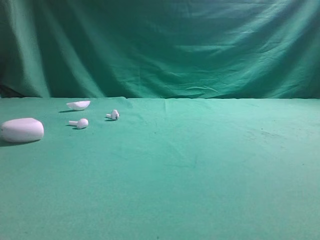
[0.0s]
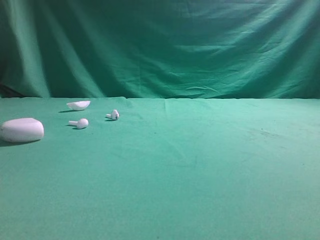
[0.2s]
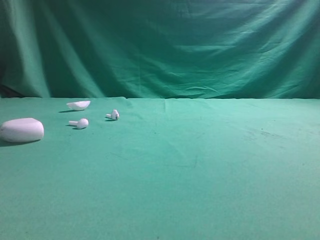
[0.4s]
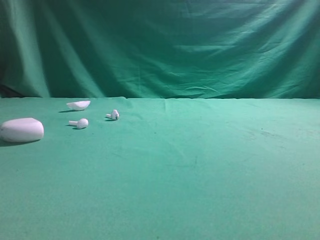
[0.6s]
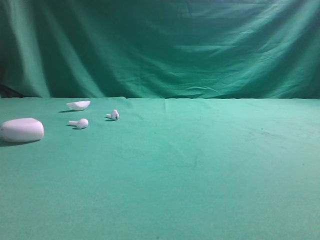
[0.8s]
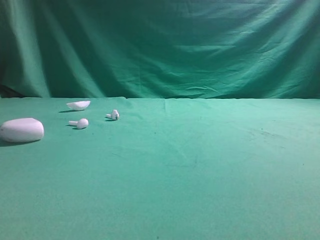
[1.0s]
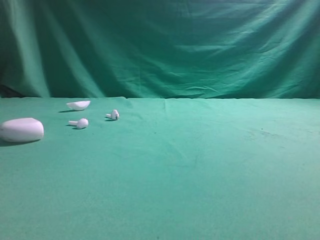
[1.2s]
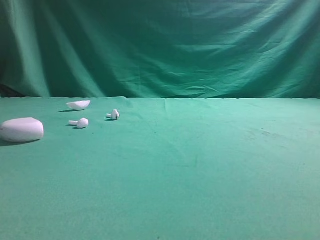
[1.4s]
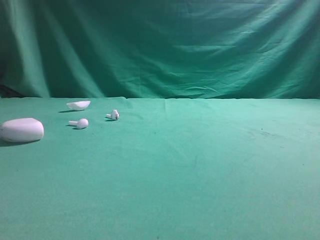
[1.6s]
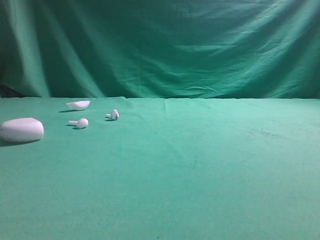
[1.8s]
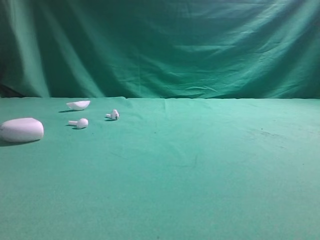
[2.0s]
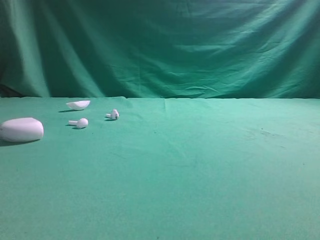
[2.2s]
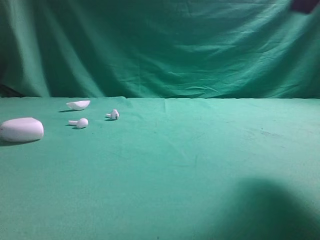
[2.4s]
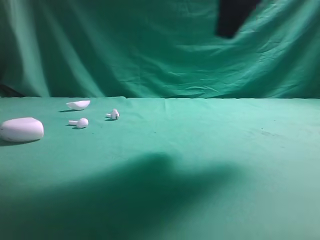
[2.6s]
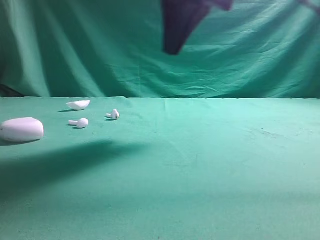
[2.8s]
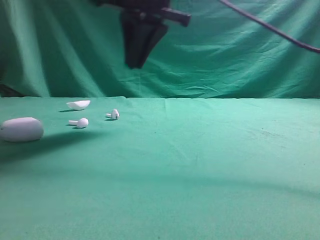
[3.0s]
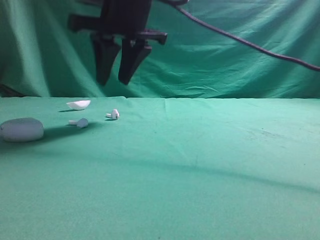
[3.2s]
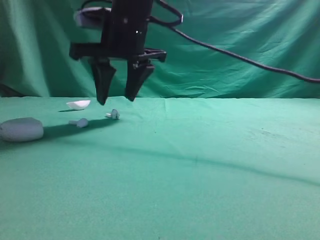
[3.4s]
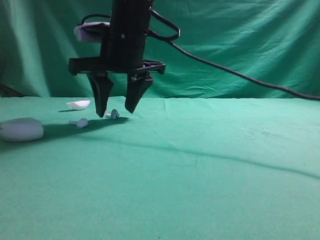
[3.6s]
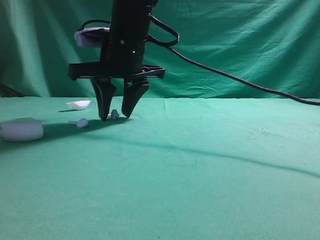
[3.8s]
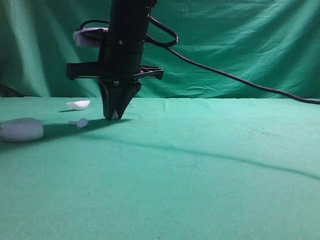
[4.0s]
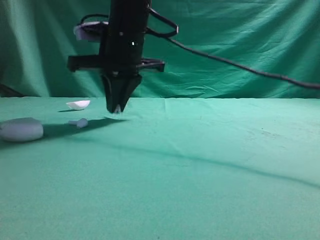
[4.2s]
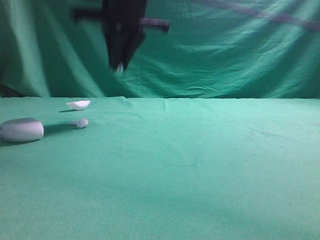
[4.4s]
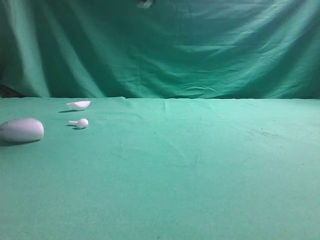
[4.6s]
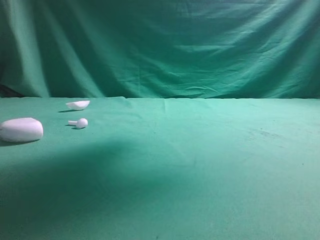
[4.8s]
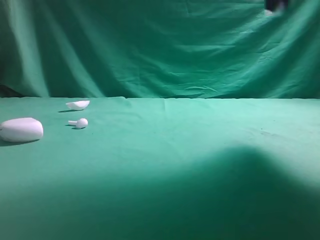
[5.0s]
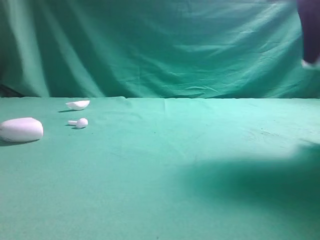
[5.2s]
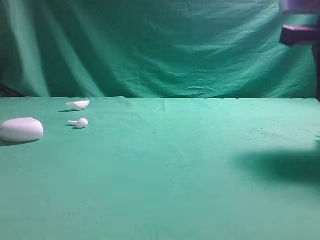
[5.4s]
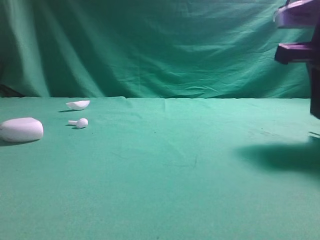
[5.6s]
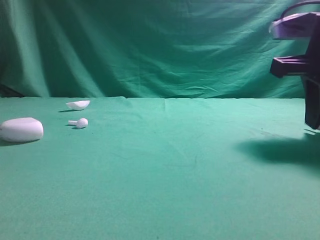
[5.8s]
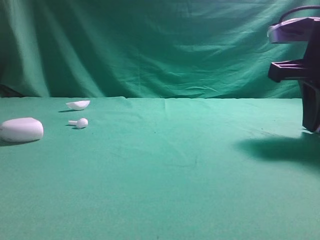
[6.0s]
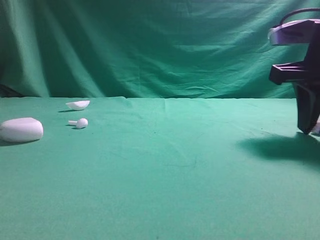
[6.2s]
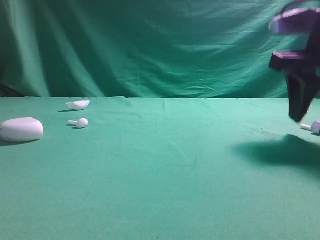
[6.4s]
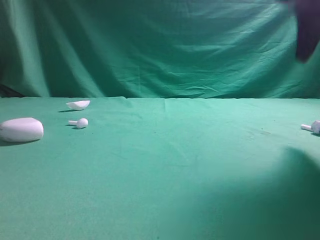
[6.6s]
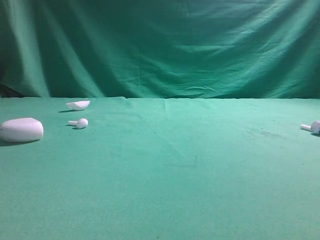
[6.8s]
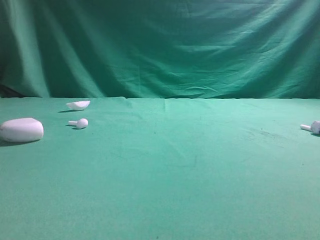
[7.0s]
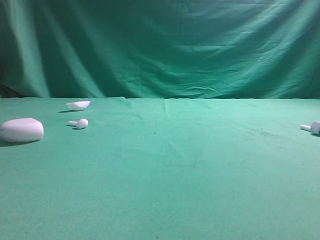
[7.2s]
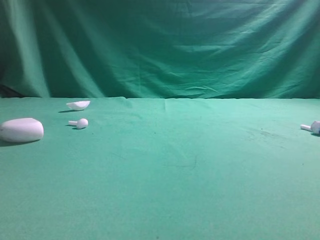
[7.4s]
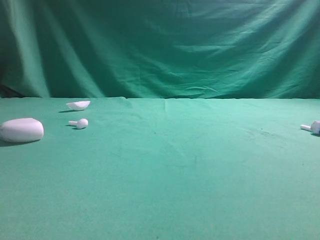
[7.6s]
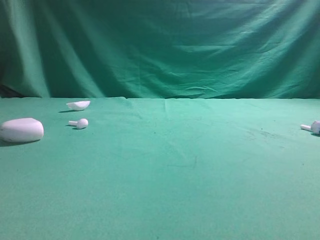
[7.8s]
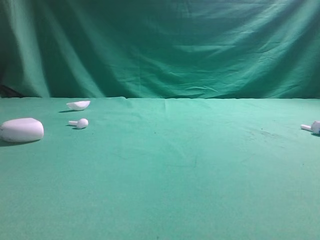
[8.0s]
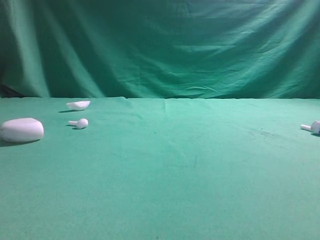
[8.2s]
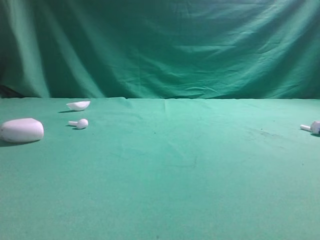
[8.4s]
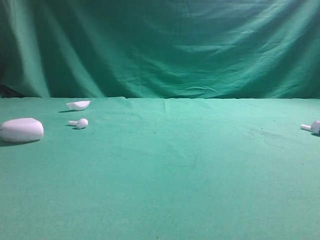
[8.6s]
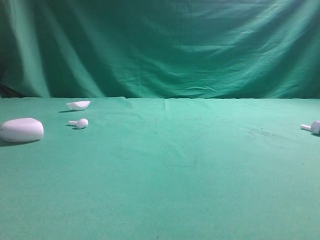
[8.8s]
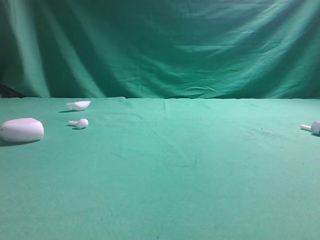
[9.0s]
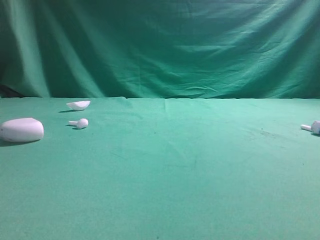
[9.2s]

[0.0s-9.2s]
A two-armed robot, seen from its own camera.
Step, 0.0s to 4.4s: Grasp the Bluetooth earbud.
Step, 4.6s to 6.4s: Place bluetooth earbud on the right side of the table.

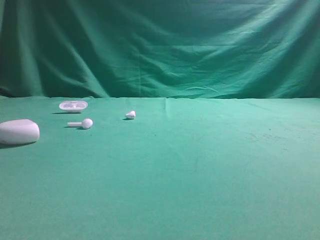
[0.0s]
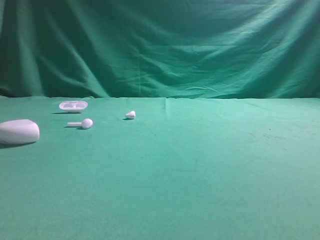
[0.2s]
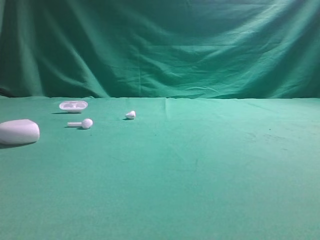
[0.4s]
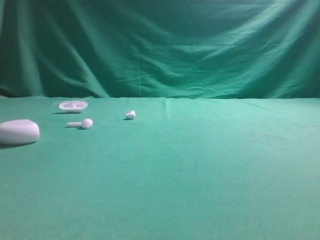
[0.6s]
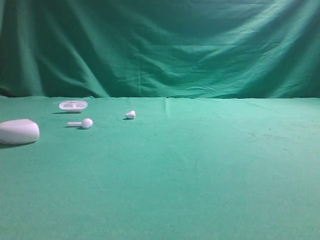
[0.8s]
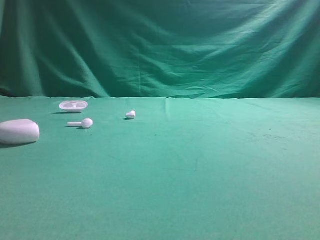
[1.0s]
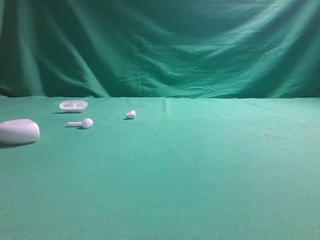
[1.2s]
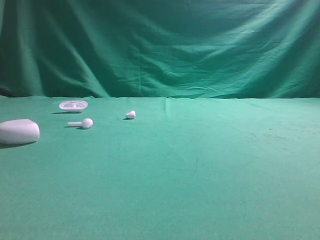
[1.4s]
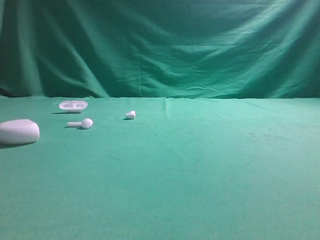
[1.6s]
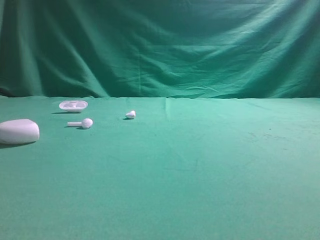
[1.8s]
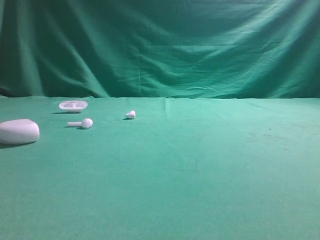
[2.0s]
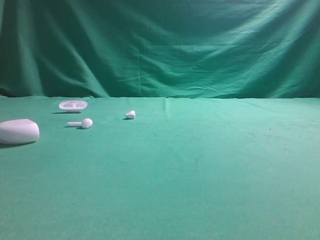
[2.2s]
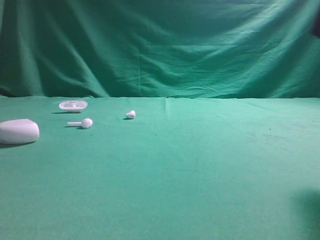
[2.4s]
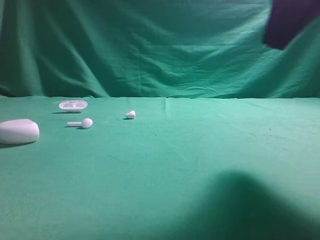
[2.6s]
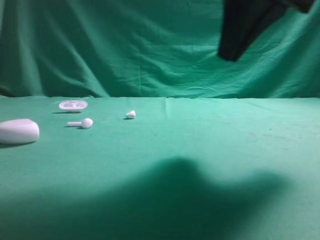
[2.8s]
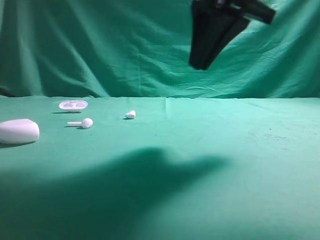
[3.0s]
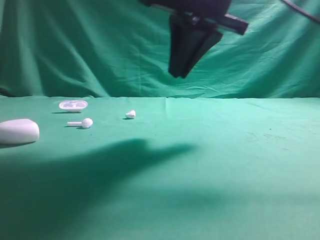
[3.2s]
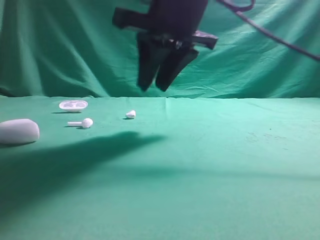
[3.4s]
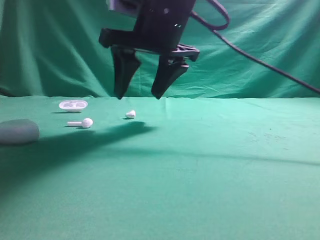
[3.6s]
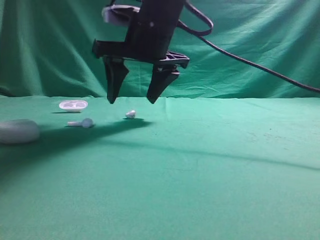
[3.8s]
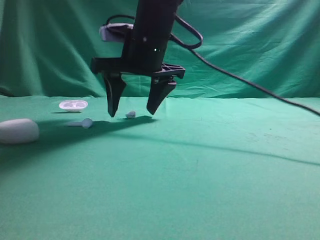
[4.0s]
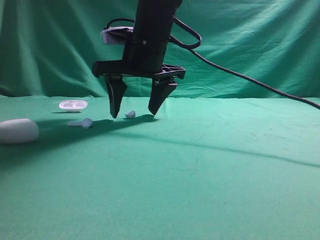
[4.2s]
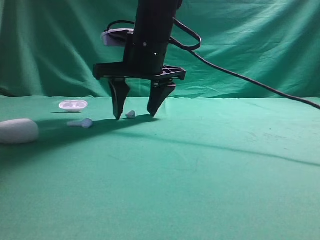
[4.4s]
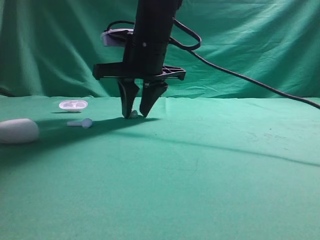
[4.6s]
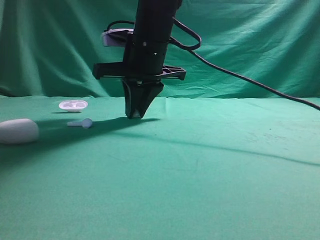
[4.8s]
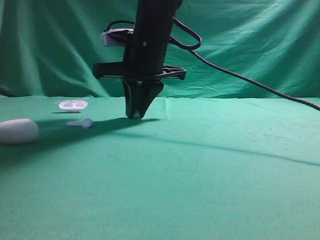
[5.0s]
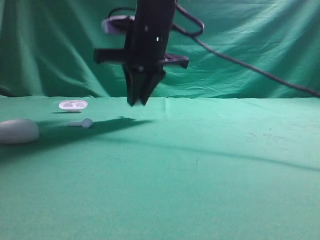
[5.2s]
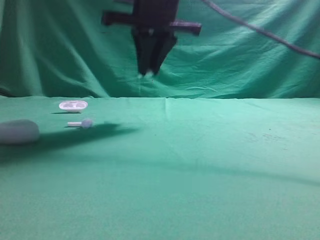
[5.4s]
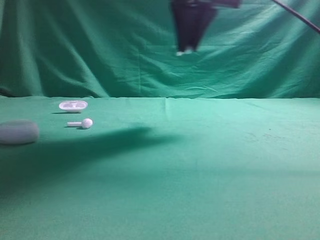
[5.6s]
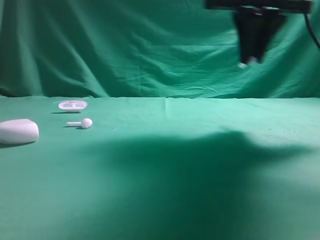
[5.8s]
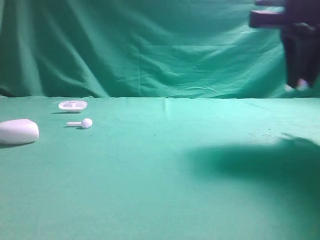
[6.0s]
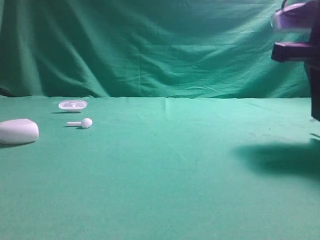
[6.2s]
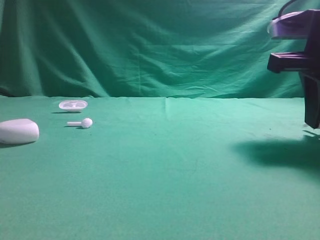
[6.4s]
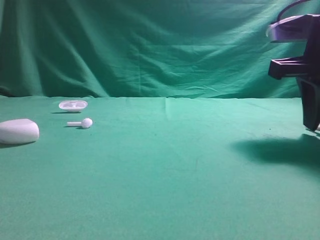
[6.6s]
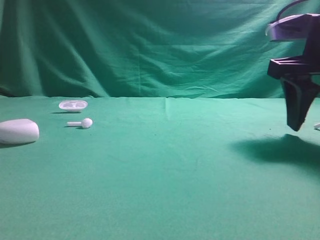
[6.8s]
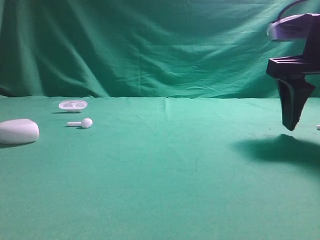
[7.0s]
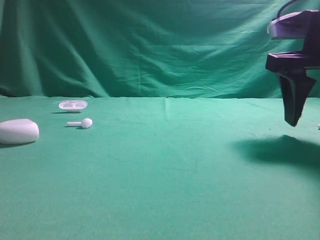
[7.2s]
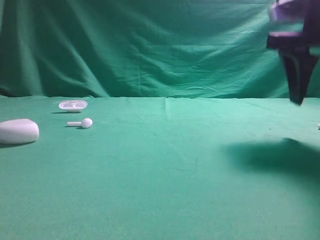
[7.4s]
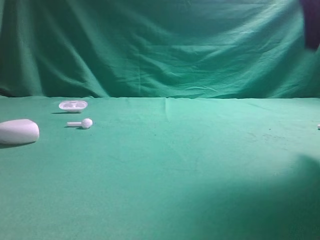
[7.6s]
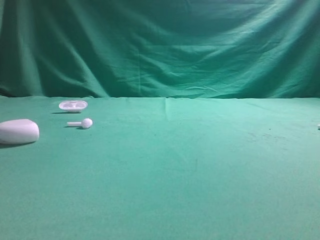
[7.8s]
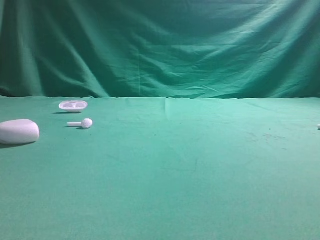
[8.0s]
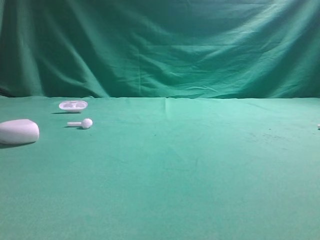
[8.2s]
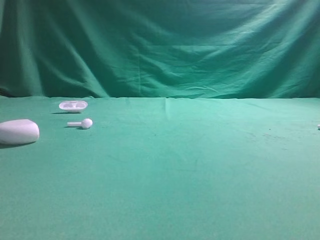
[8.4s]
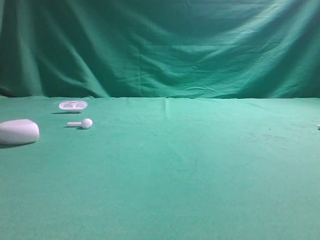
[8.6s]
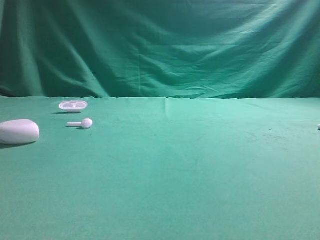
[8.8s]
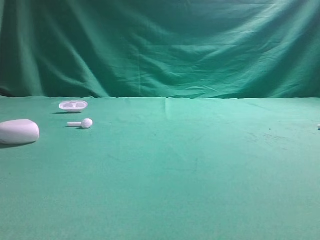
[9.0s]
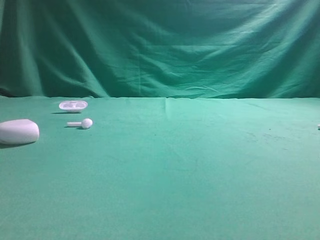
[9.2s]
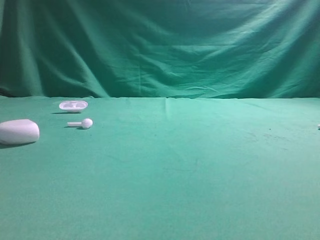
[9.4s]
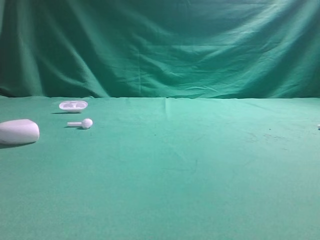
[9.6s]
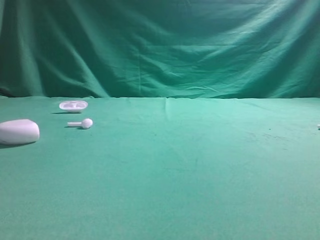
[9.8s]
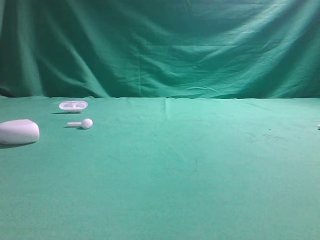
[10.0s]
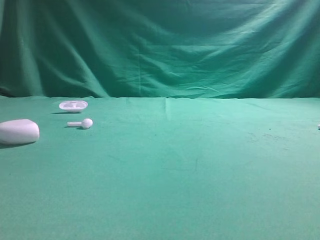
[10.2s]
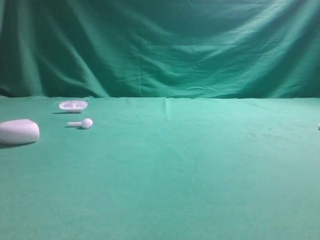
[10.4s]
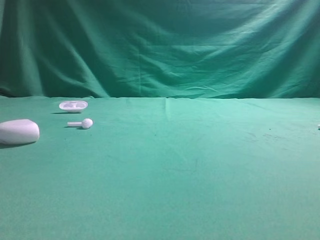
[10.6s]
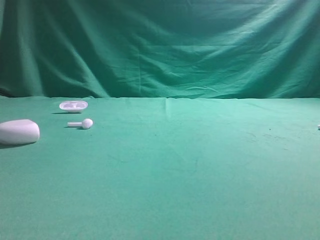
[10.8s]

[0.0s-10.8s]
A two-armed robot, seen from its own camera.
Step, 0.0s to 5.4s: Grasp the Bluetooth earbud.
Step, 5.6s to 7.4s: Place bluetooth earbud on the right side of the table.
